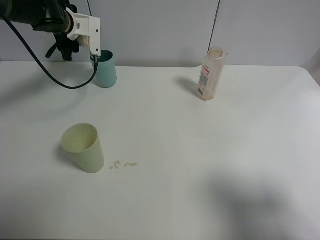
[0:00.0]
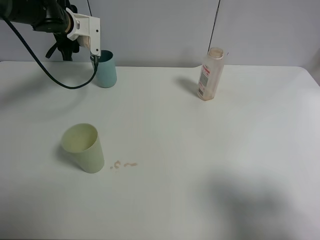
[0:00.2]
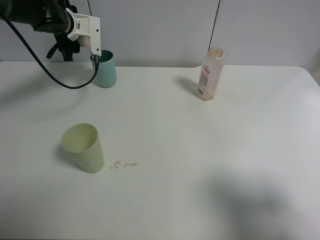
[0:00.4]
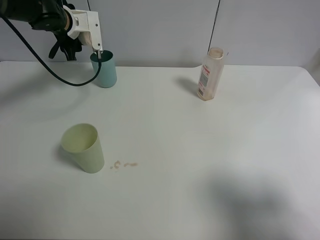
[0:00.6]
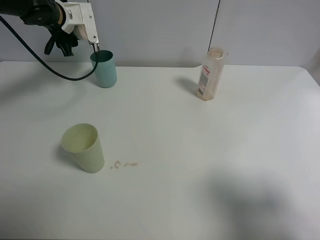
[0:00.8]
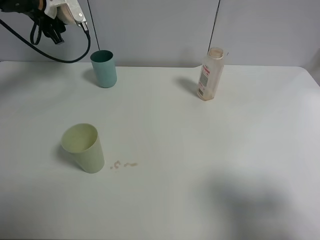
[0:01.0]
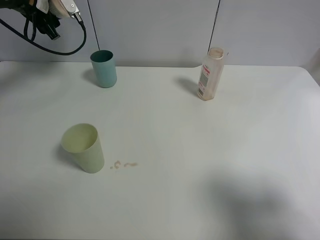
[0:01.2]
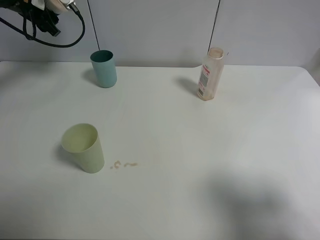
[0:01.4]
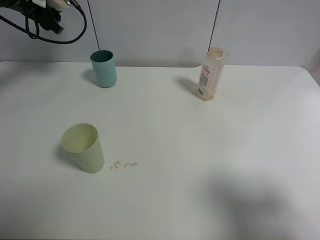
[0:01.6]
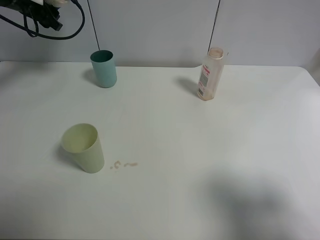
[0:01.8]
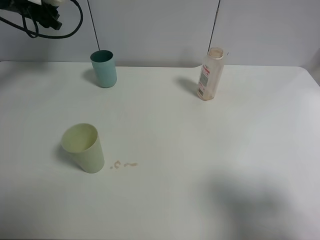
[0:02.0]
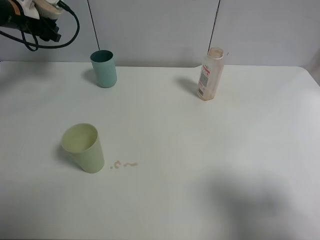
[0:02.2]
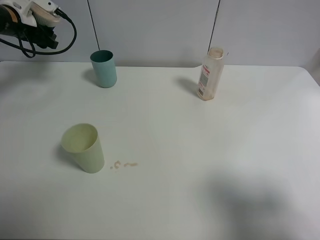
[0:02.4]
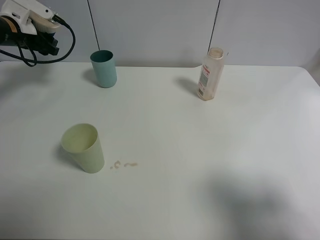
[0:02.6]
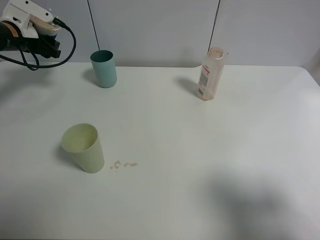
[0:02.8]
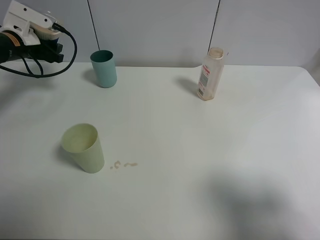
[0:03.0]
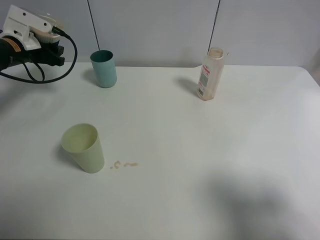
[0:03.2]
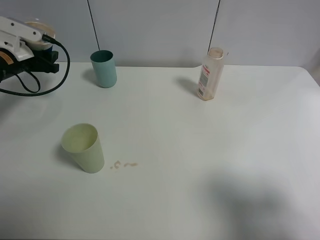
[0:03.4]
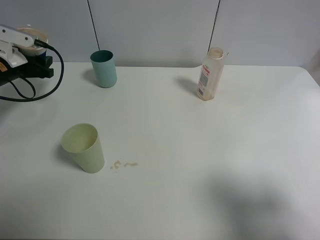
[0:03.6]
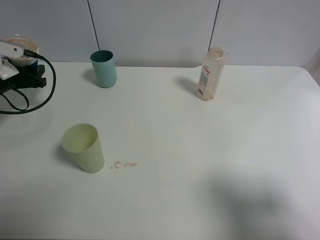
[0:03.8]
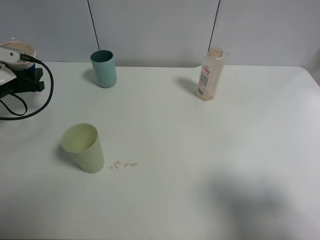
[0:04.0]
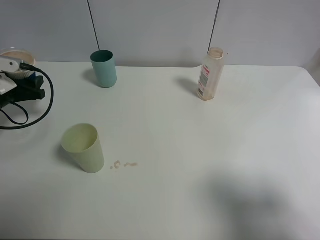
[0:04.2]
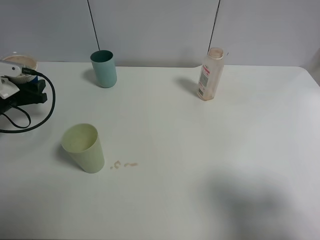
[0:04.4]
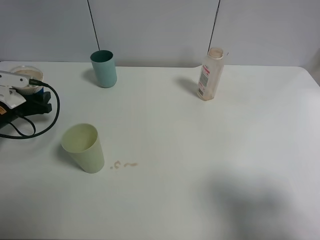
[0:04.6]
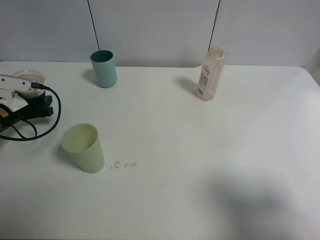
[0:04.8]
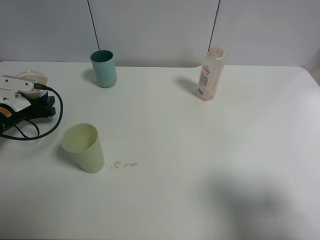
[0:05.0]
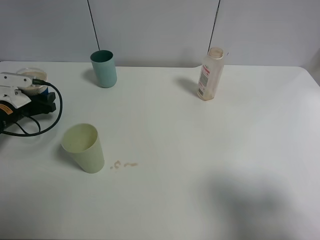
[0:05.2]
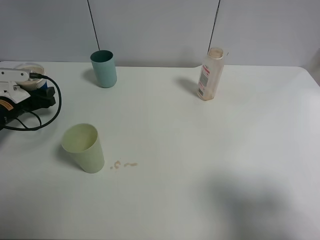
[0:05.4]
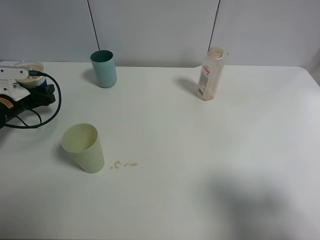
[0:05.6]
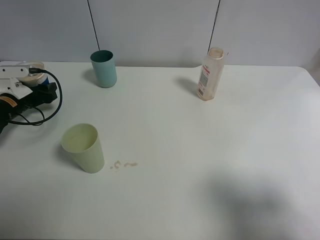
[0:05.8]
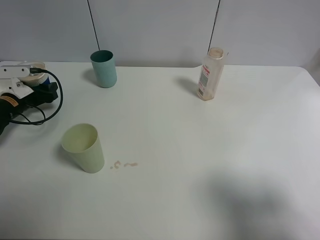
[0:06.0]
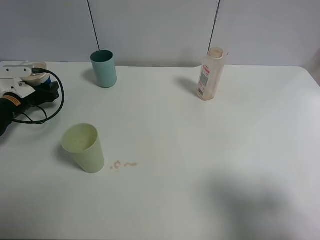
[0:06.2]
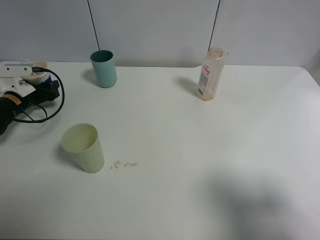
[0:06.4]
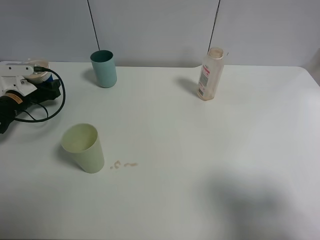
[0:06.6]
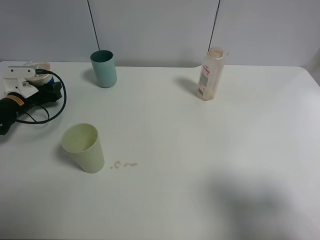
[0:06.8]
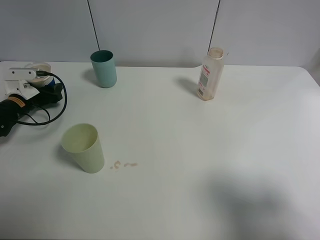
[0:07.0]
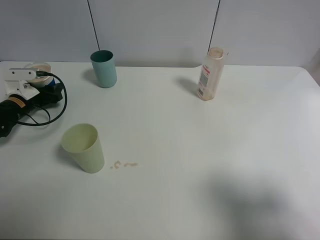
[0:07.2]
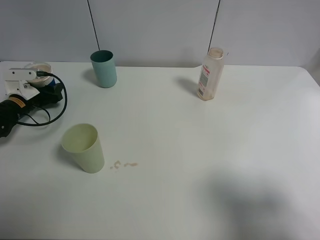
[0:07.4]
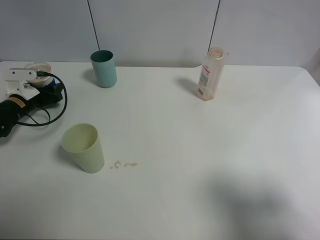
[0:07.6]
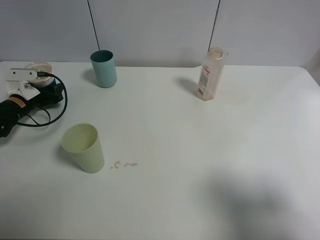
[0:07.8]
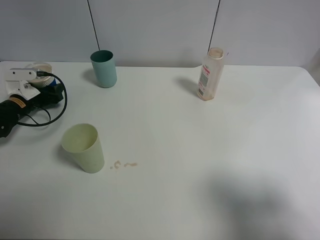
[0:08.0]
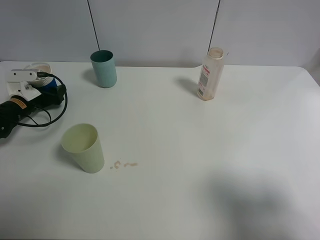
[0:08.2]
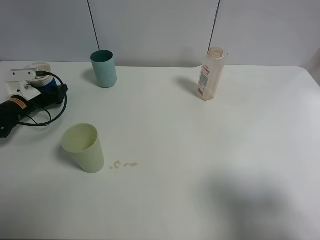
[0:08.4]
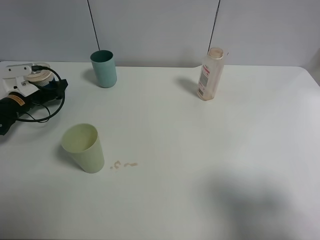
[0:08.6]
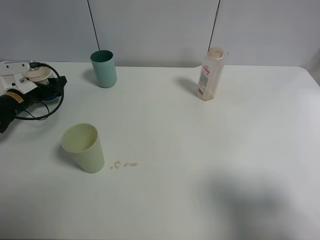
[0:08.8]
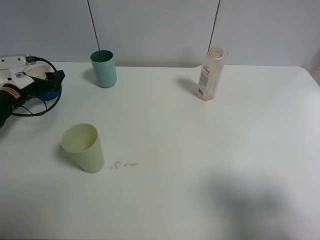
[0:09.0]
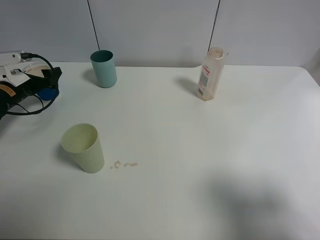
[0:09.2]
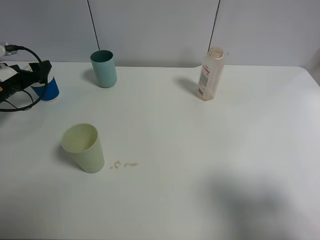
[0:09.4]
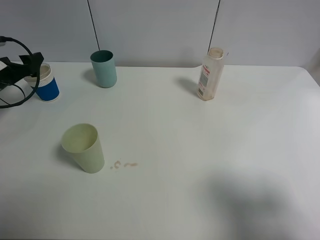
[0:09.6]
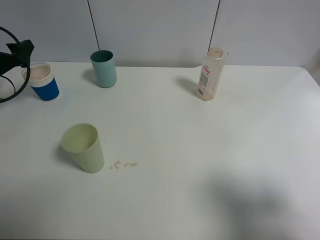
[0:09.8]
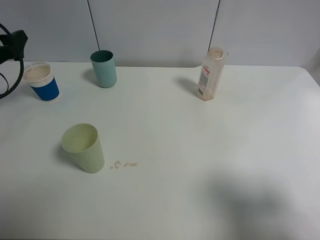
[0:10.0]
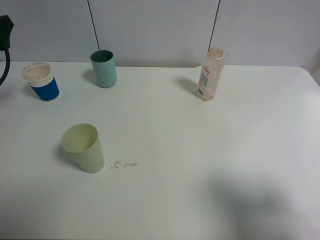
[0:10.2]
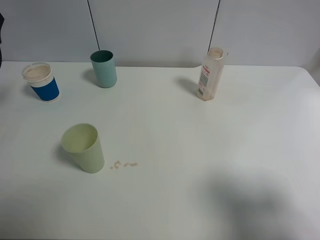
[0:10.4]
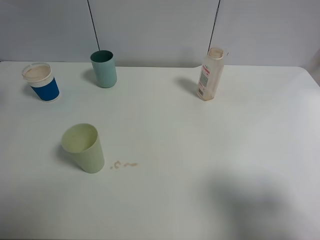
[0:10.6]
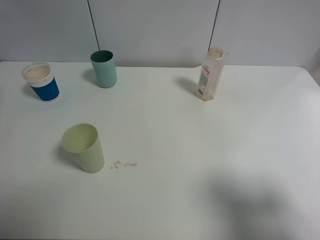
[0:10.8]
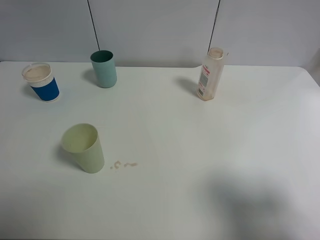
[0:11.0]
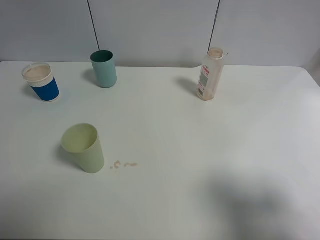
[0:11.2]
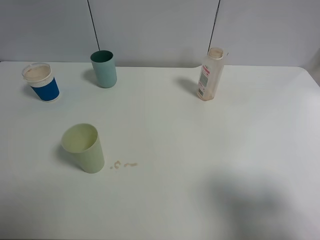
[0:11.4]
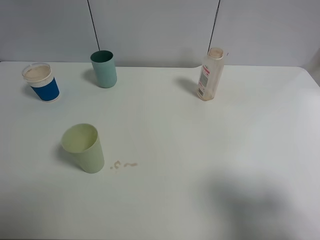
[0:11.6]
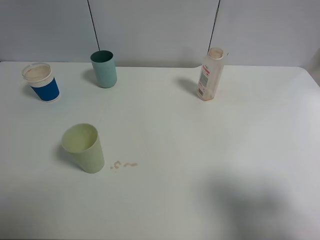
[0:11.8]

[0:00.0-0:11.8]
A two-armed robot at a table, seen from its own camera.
Task of the whole recording: use a clamp to hold the bottle of the drink, pour the beverage into a random cup, then clamp the cup containing the drink and pour the drink into another random cup.
Step, 0:00.8 to 0:08.6: Place the paper cup on the table with left gripper.
0:00.0 to 0:01.4: The left gripper moves to the left and upward, some 10 cm.
0:01.4 to 0:03.0: The left gripper goes about 10 cm downward and backward.
0:03.0 to 0:04.4: The left gripper shifts some 15 cm backward and downward.
0:04.4 to 0:06.0: The left gripper shifts by about 5 cm.
0:06.0 to 0:07.4: There are only small adjustments of the grippers.
0:07.4 to 0:08.8: The left gripper opens its fingers.
0:08.8 to 0:10.4: The left gripper travels upward and backward by about 20 cm.

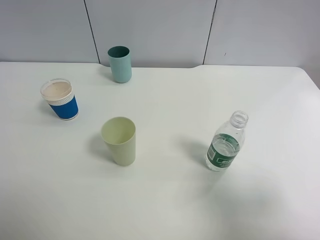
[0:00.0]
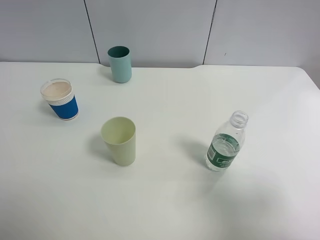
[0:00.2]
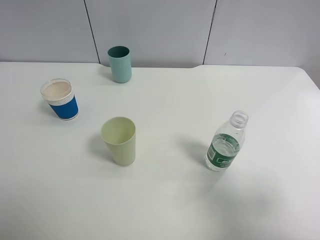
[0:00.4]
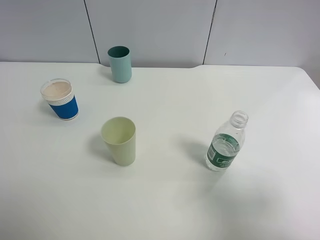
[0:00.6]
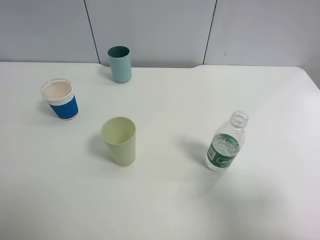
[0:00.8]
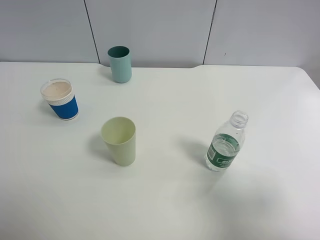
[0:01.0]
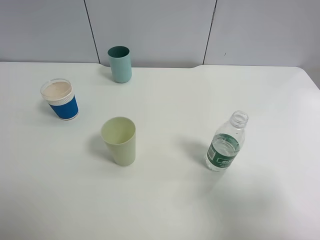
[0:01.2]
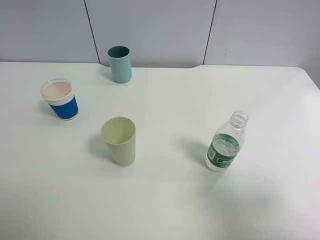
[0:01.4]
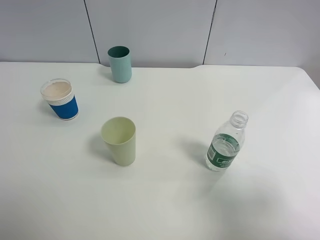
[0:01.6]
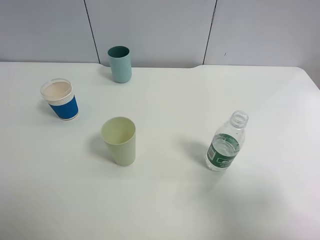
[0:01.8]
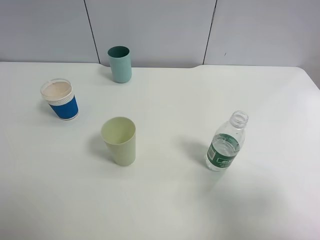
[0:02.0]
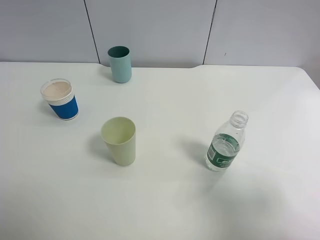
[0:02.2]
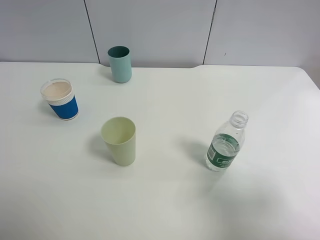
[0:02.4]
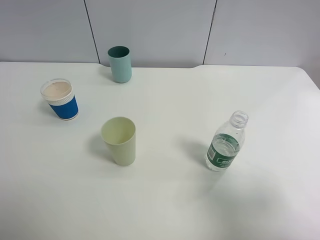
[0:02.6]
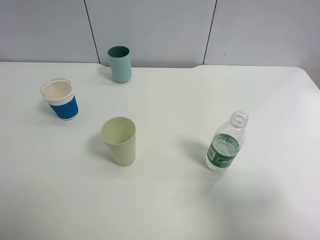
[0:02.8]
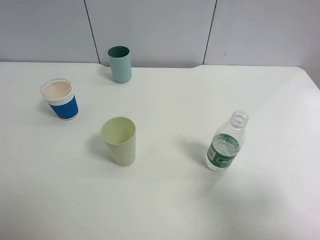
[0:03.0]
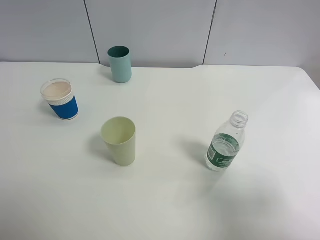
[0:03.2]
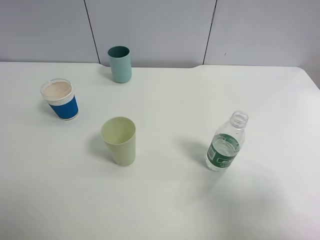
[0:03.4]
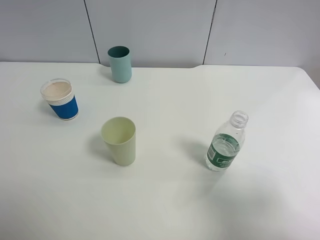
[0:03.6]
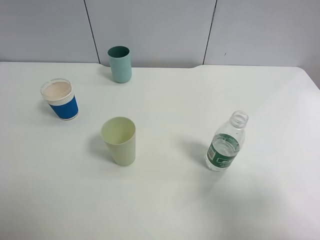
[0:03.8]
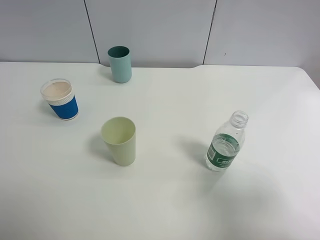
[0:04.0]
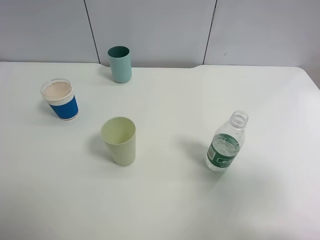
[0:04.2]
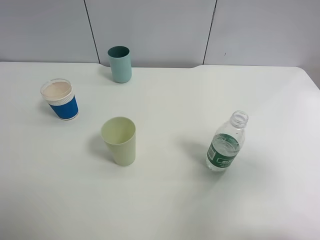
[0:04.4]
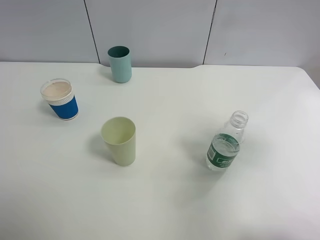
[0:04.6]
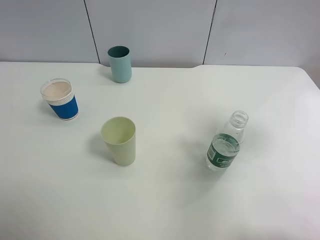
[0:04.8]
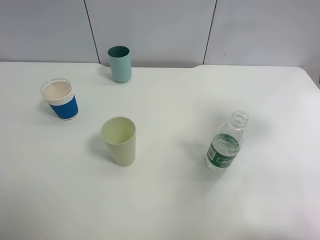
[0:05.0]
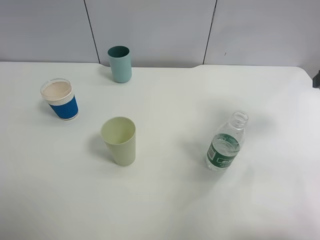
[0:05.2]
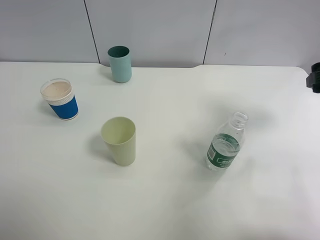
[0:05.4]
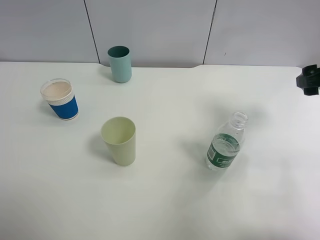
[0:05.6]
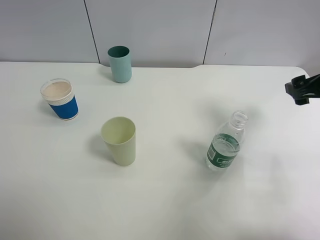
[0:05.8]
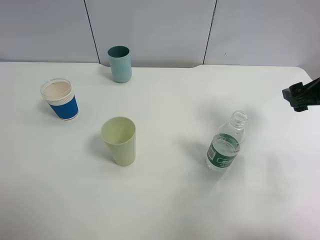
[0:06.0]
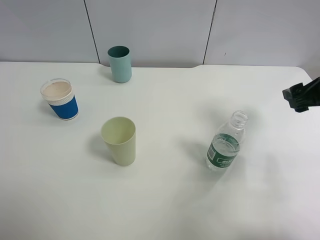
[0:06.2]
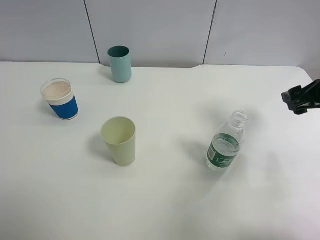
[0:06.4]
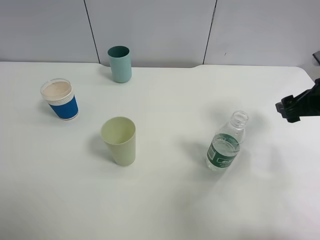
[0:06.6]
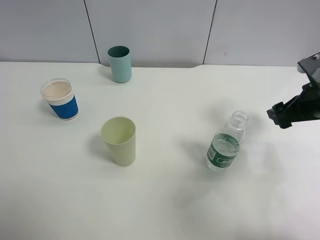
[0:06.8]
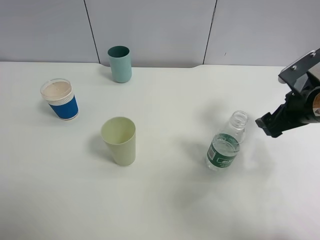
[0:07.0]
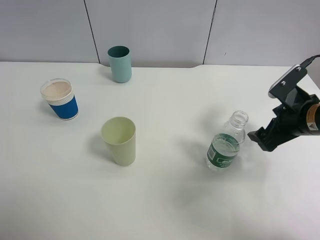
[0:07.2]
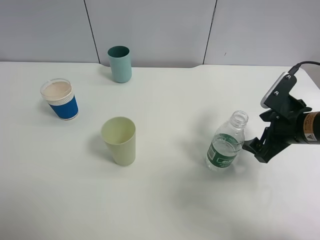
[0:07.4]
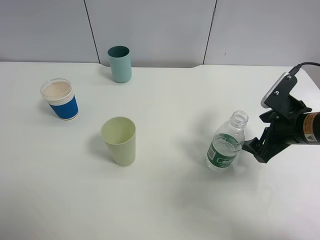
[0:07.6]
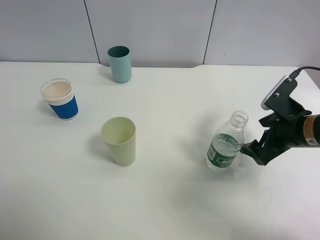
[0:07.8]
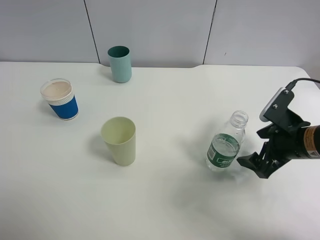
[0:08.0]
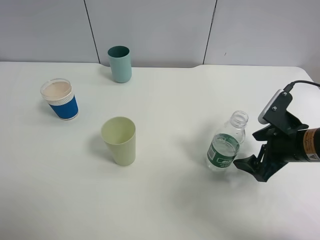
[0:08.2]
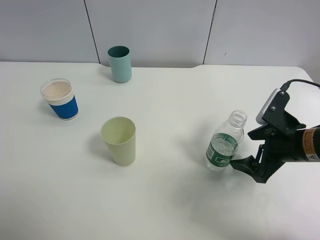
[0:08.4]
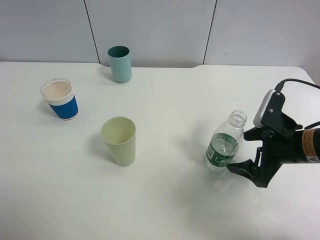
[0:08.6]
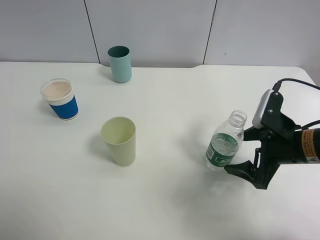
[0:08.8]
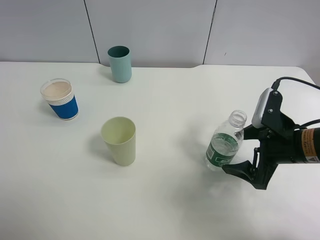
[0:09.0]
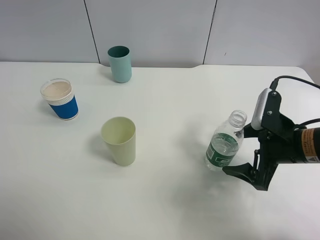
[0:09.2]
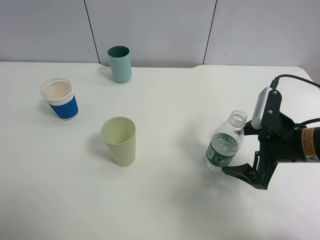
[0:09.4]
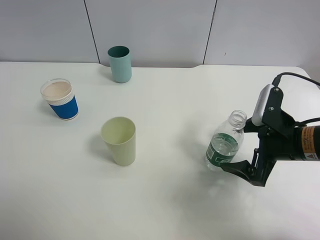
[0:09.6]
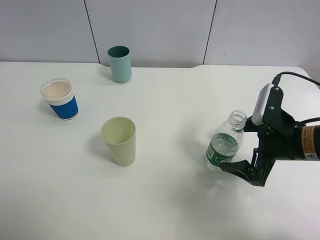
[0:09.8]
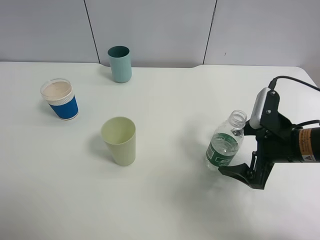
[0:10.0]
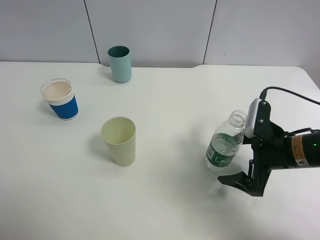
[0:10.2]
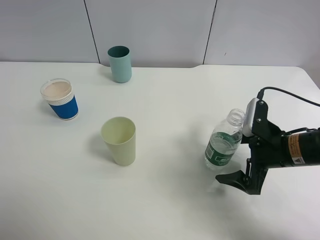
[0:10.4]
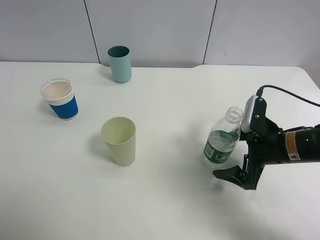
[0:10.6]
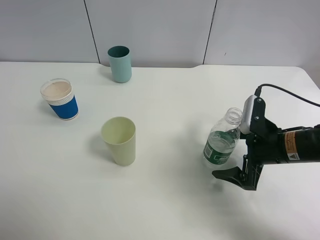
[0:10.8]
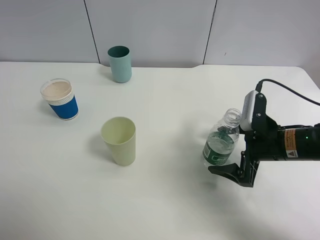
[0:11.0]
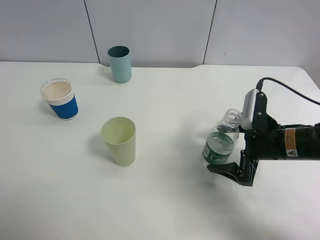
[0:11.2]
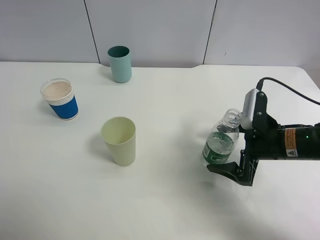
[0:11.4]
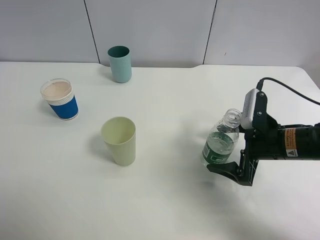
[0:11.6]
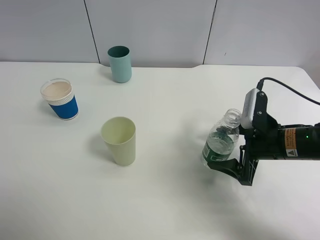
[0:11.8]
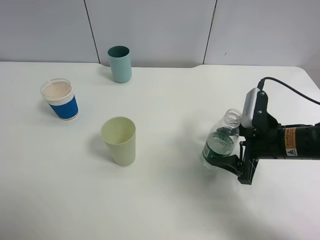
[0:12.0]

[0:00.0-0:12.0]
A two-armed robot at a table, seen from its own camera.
Task of the whole recording: use a clamp to hold the bottle of the drink, pour the beverage into a random cup, then clamp the cup containing the drink and pour the drink into another random cup.
0:00.0 to 0:03.0: Both grippers stay put.
0:03.0 to 0:04.4: The right gripper goes some 10 cm forward and upward.
0:04.4 to 0:06.0: The right gripper goes approximately 20 cm forward and downward.
0:06.0 to 0:07.6: The right gripper heads downward, covering roughly 10 cm.
0:09.0 to 0:10.4: There are only small adjustments of the grippers.
0:10.4 to 0:12.0: The right gripper closes its fingers.
